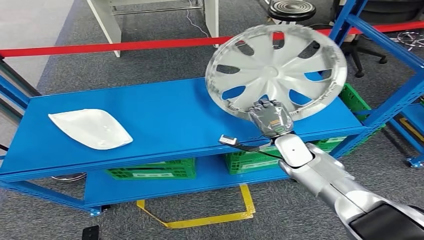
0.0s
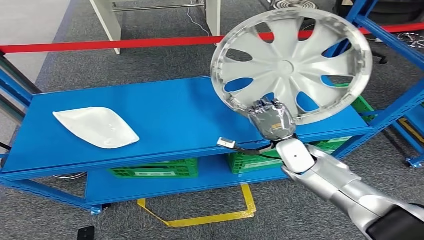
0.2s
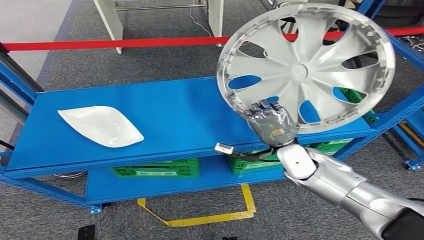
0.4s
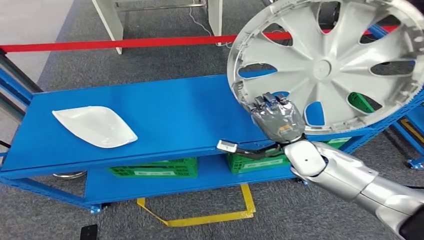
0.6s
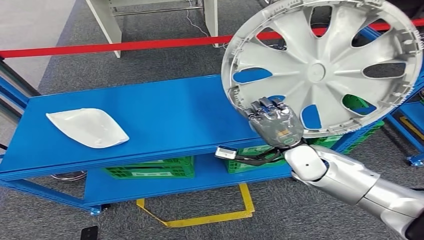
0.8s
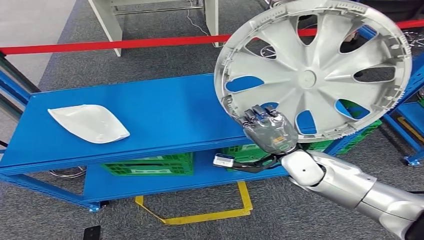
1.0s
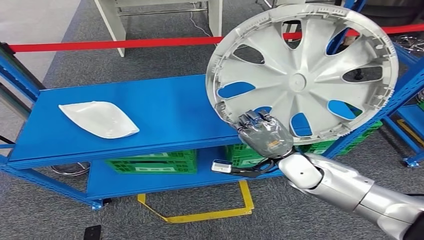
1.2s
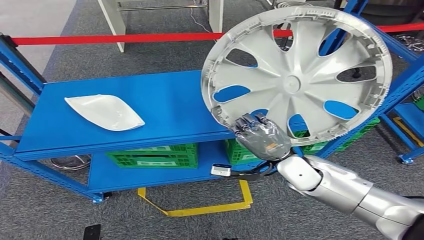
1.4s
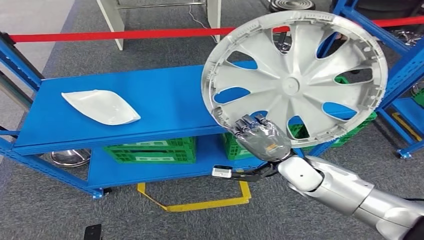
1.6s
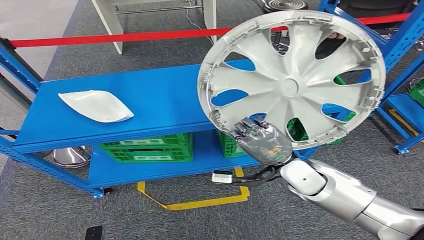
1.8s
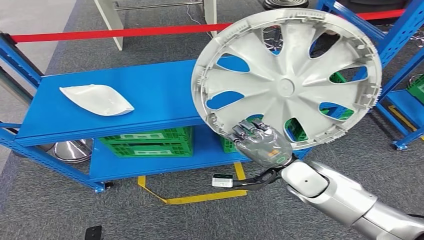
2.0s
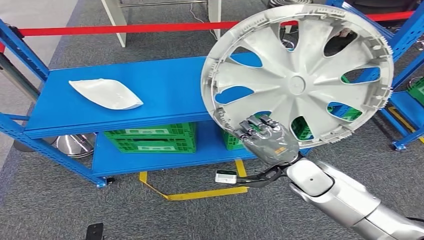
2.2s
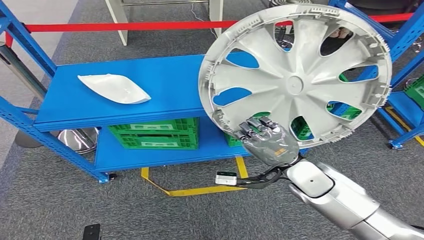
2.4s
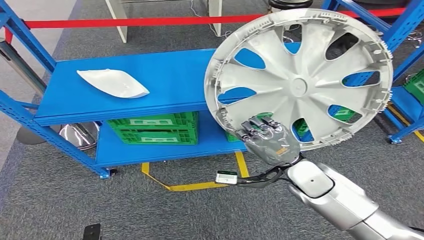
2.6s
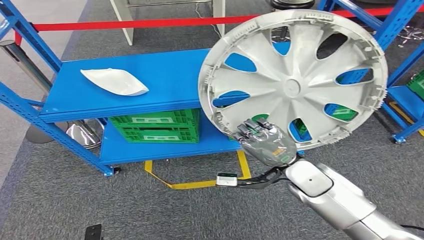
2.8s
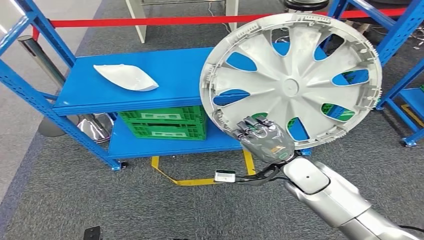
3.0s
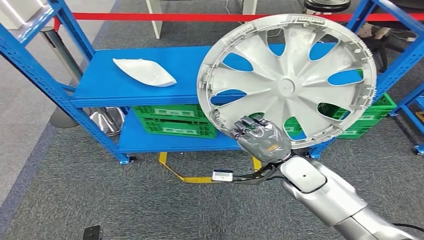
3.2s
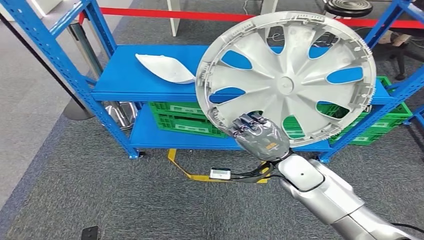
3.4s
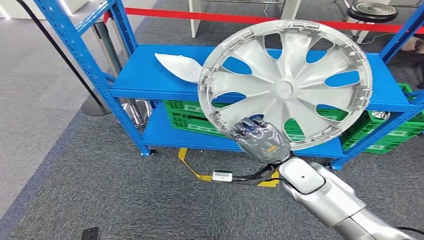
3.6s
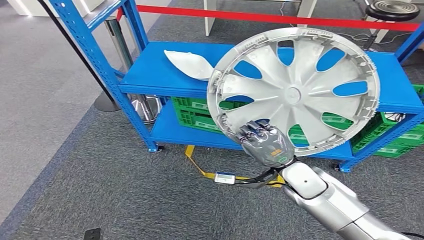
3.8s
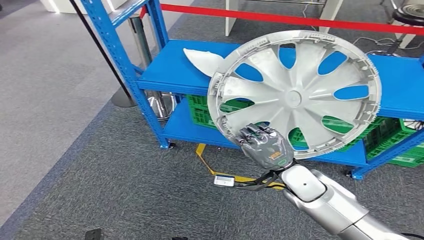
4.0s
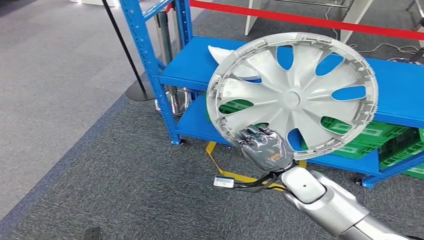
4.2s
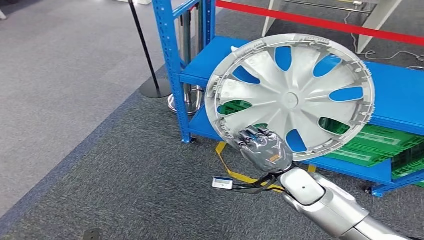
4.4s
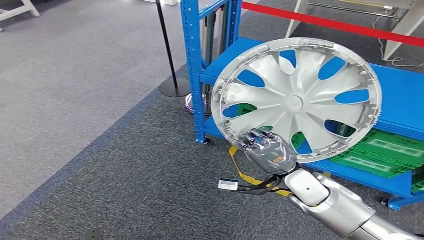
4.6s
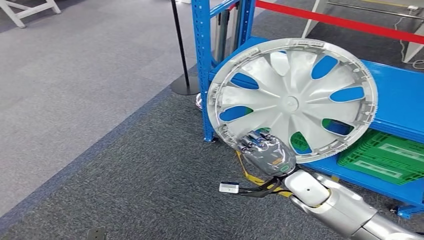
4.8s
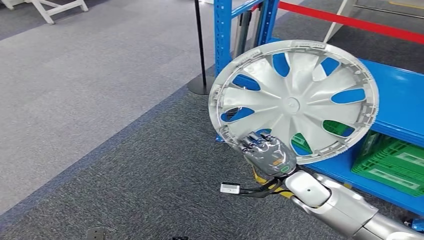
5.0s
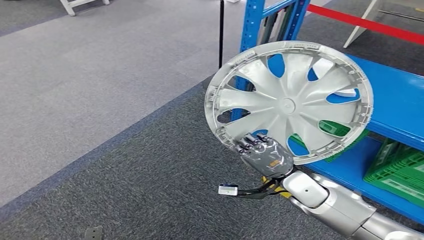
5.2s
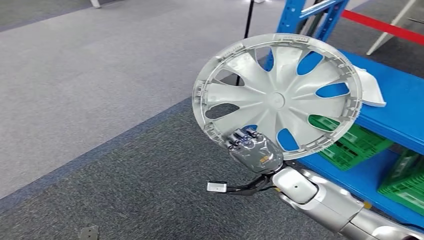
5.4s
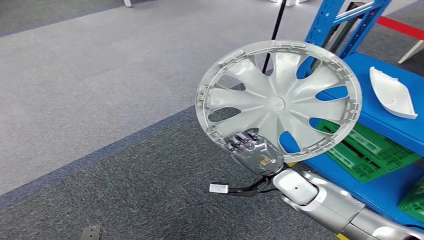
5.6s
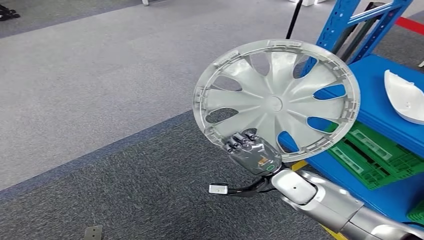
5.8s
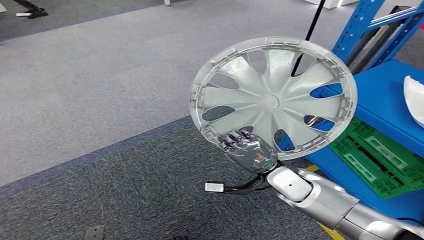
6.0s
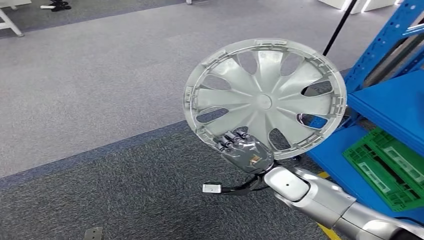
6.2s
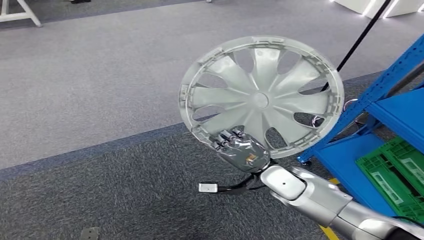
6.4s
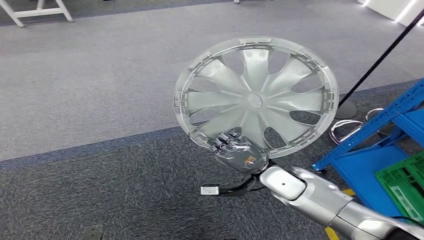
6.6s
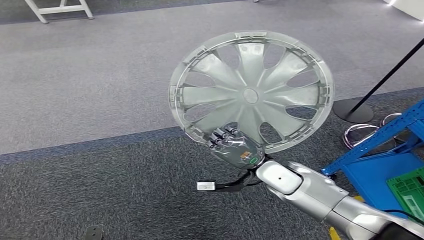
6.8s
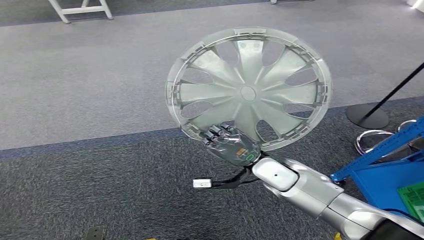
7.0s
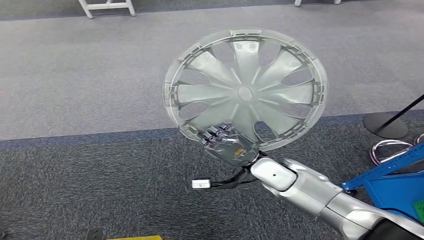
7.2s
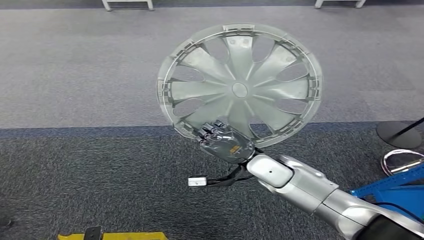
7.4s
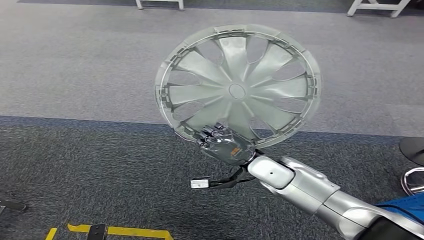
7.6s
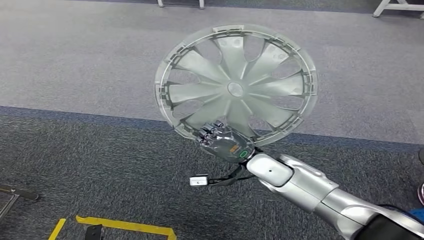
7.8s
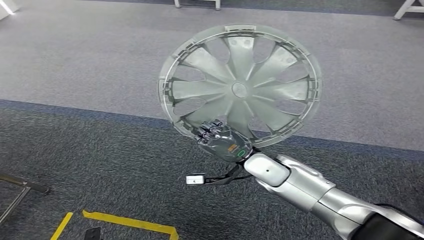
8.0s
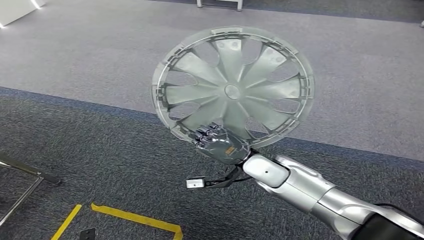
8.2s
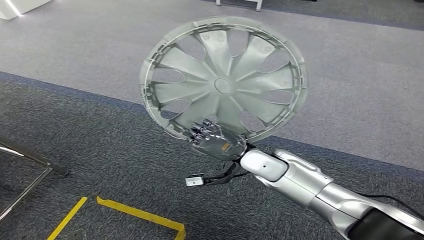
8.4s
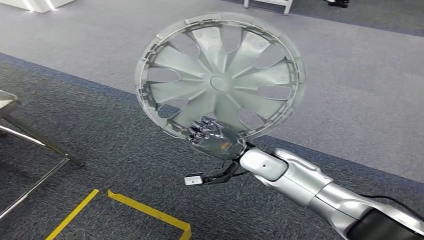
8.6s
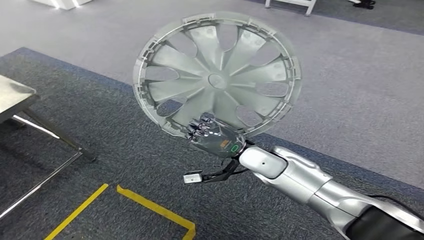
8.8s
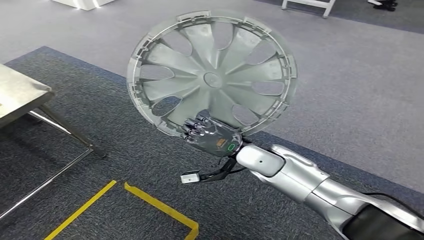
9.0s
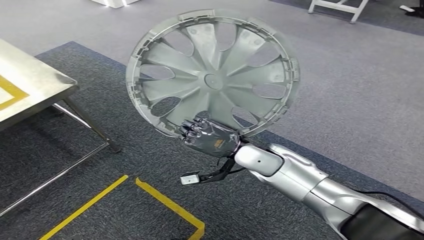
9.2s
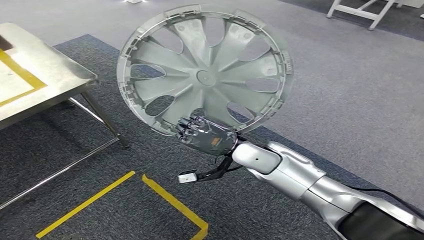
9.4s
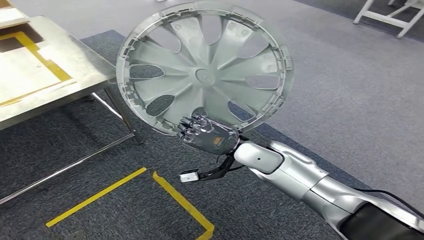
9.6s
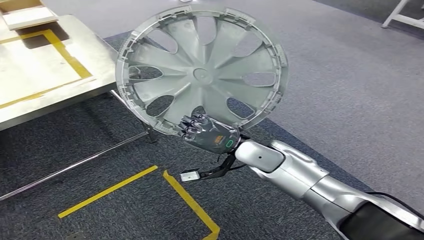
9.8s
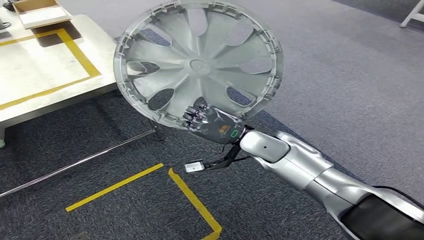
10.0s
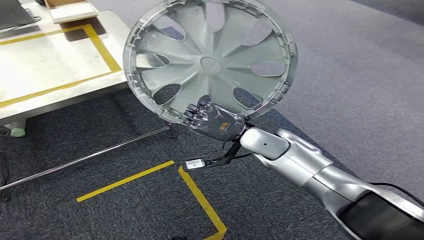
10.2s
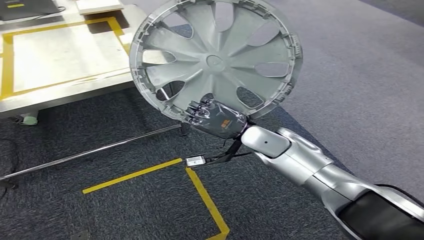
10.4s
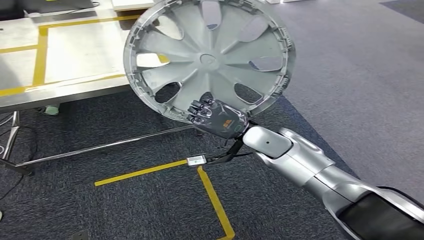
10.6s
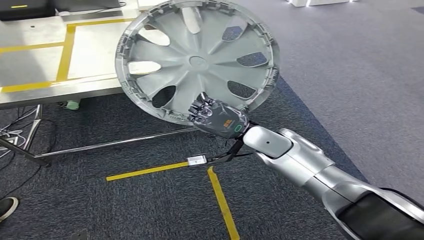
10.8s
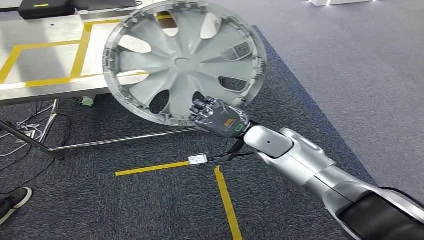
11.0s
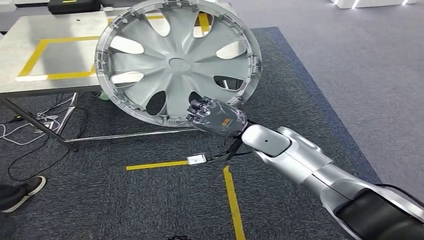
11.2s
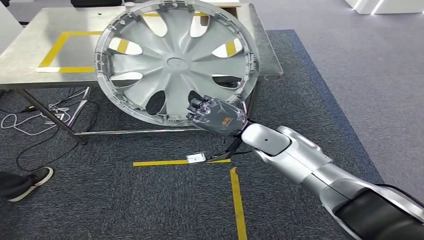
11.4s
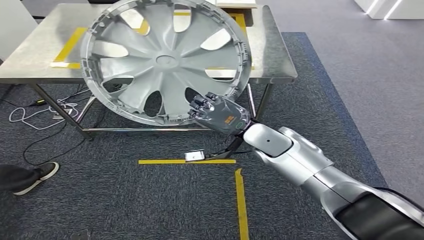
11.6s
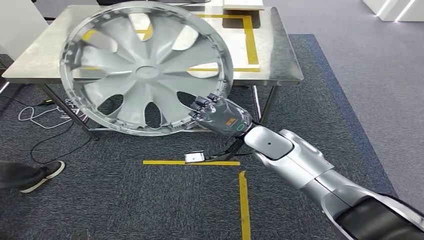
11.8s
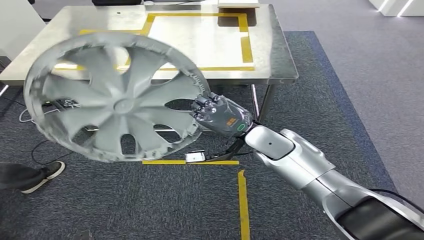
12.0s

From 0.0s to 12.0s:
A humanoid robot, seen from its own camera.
Step, from 1.4s to 10.8s: Move the small component to the workbench.

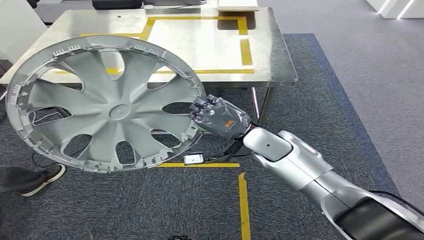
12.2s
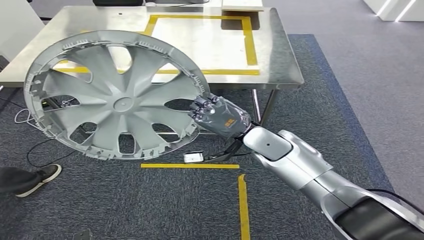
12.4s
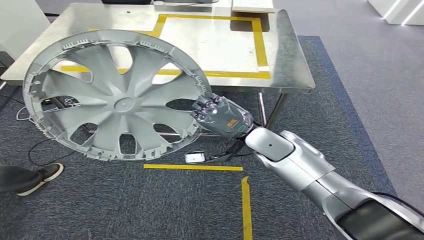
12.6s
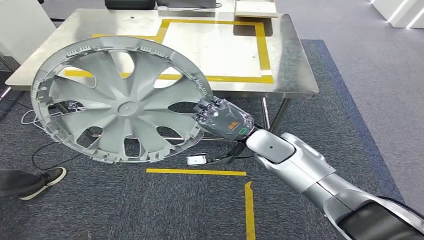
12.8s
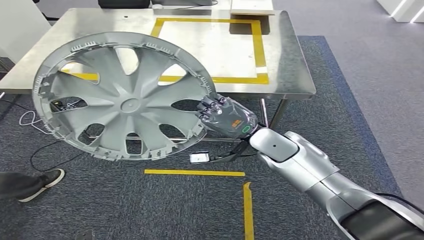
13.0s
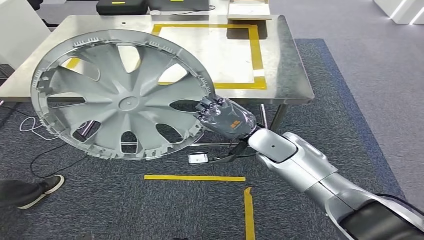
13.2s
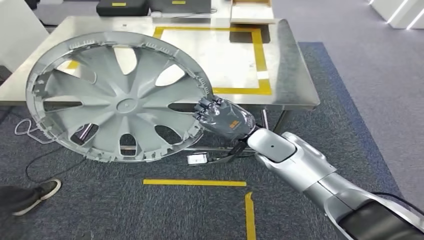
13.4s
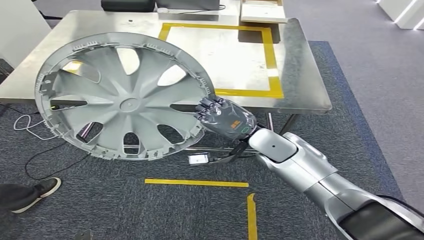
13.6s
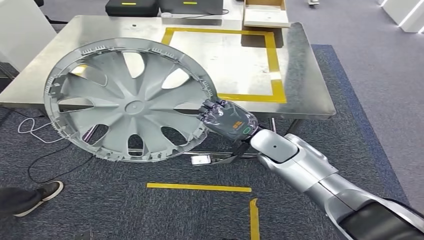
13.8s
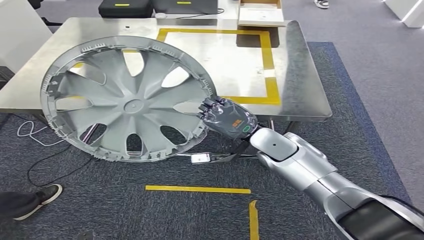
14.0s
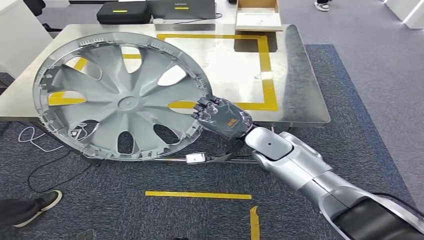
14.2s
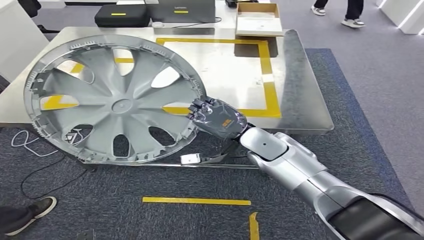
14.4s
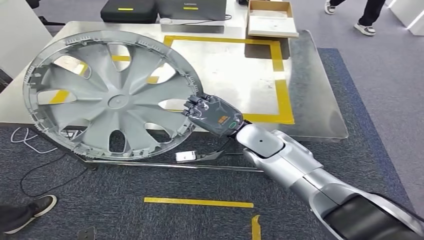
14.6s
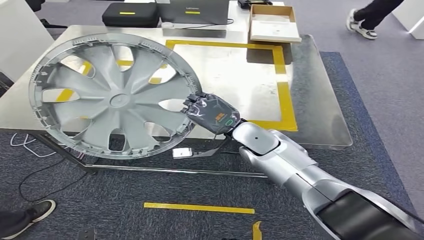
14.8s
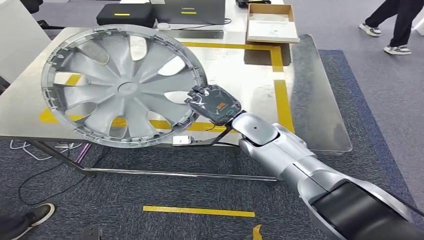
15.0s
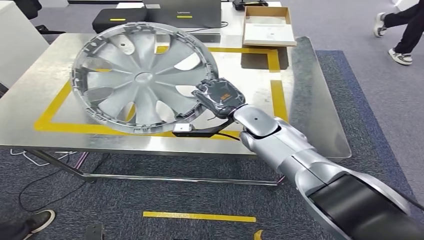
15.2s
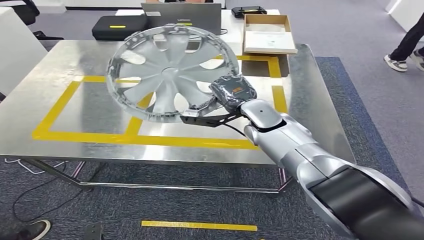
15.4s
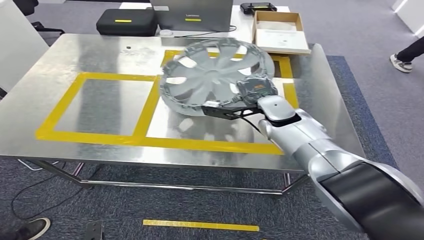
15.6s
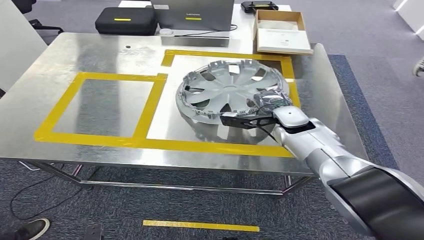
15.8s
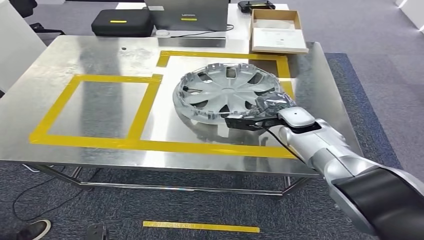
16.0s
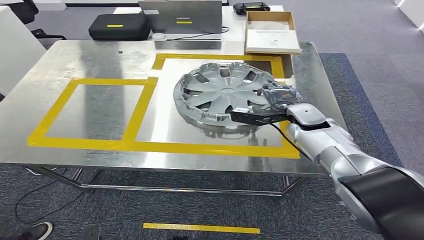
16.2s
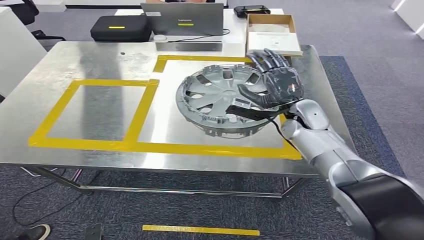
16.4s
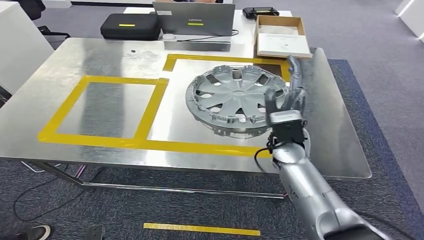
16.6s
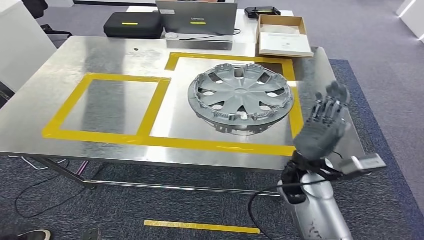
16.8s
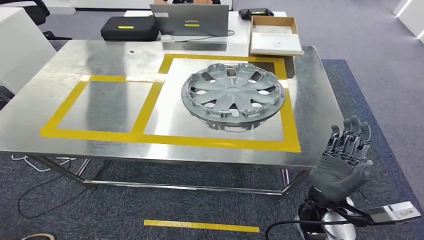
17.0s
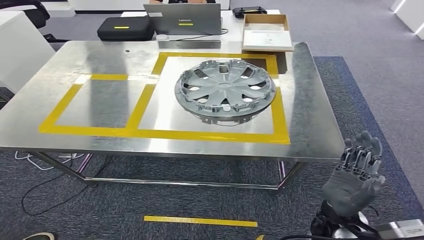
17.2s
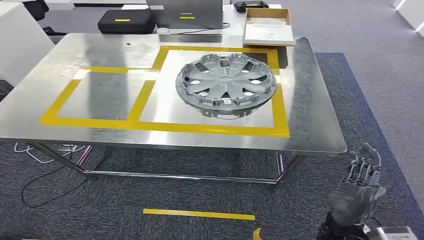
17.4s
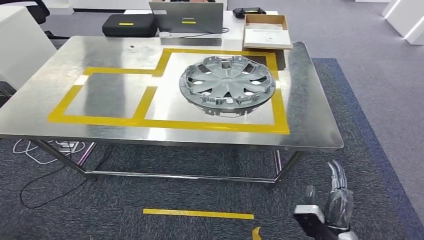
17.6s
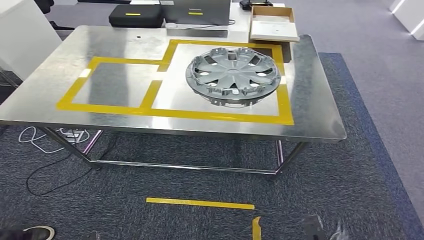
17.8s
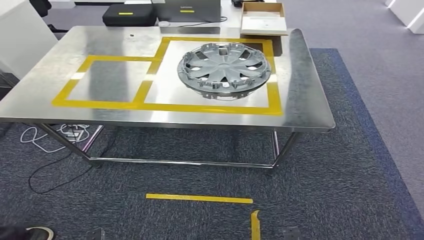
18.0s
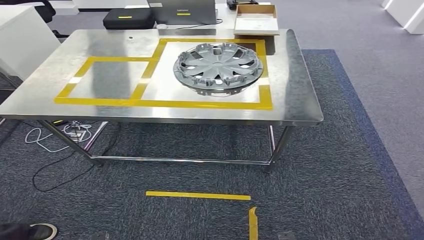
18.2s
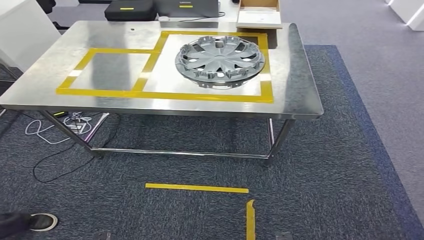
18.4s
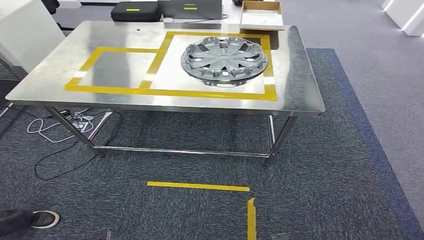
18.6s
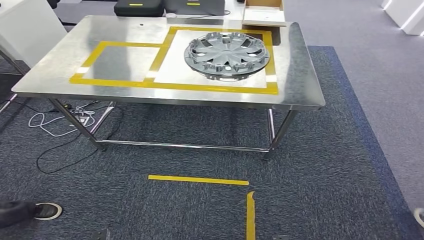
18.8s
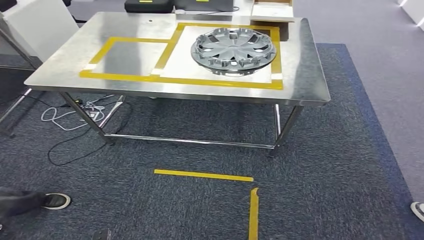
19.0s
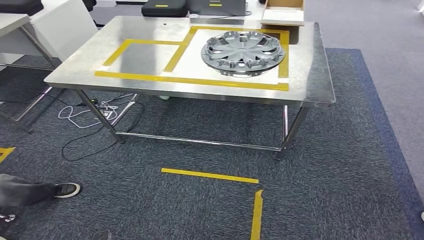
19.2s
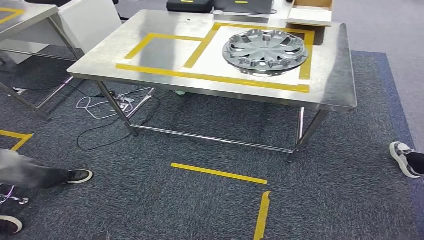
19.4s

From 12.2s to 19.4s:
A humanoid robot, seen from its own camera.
Step, from 12.2s to 18.0s: Insert the small component into the corresponding slot on the workbench.
